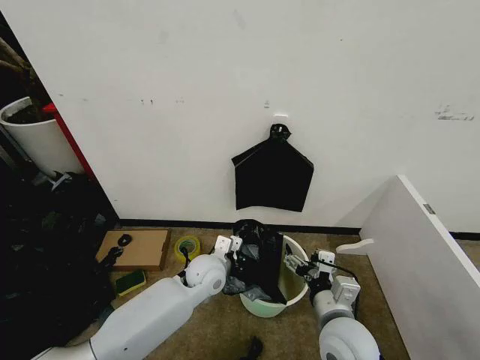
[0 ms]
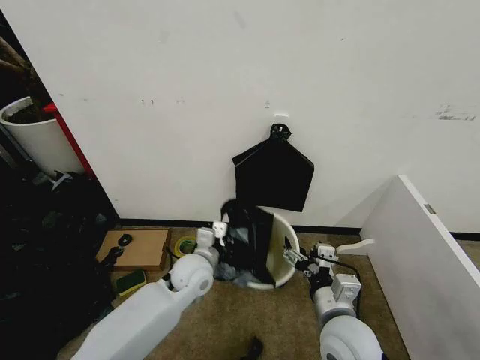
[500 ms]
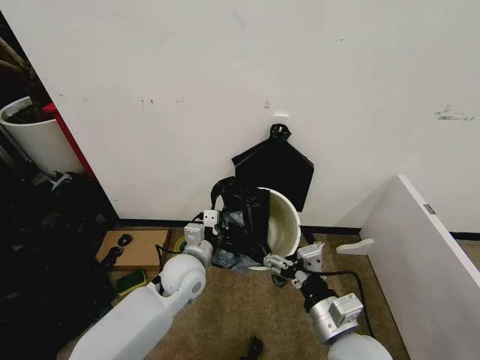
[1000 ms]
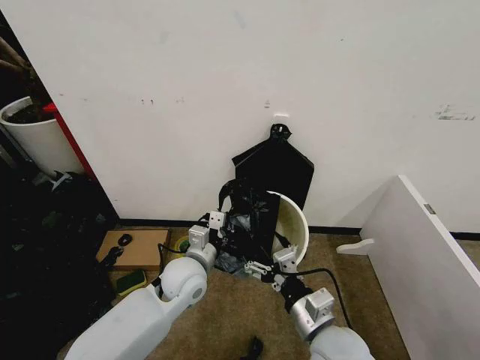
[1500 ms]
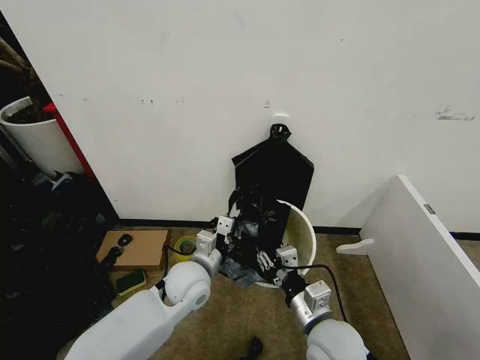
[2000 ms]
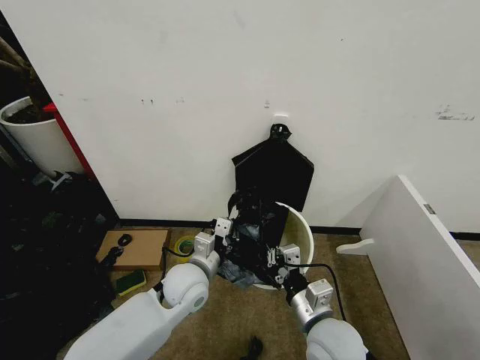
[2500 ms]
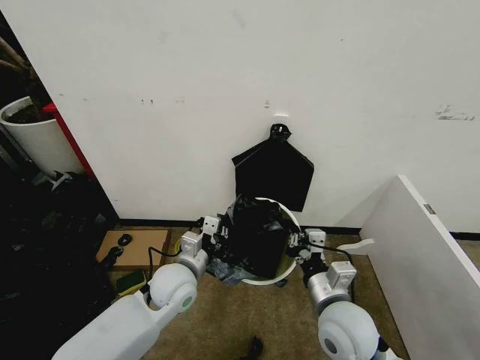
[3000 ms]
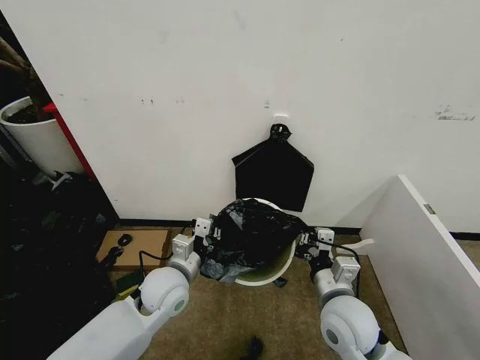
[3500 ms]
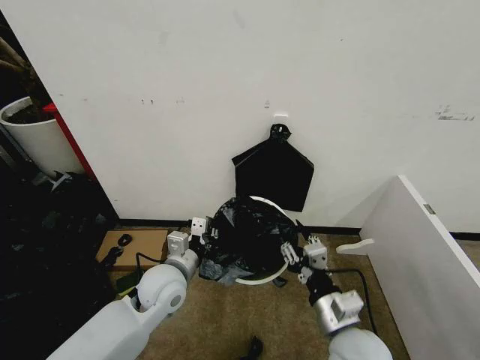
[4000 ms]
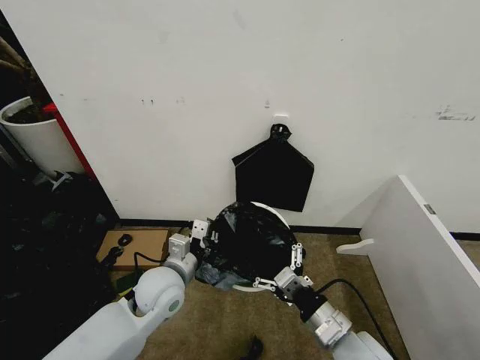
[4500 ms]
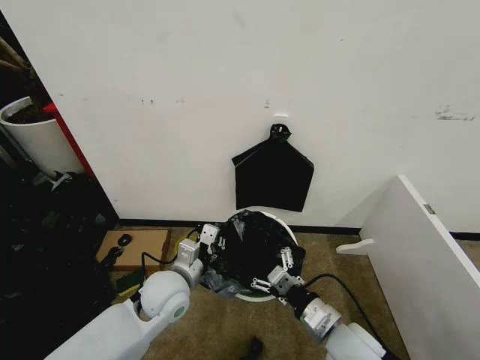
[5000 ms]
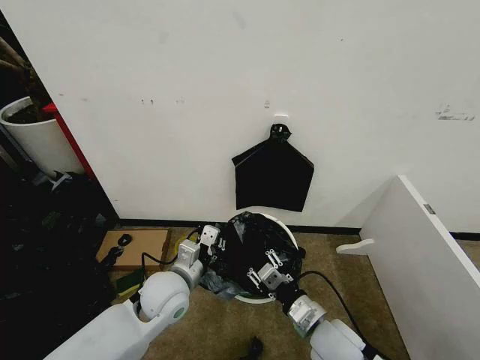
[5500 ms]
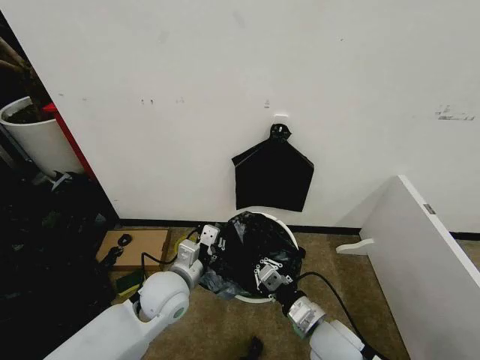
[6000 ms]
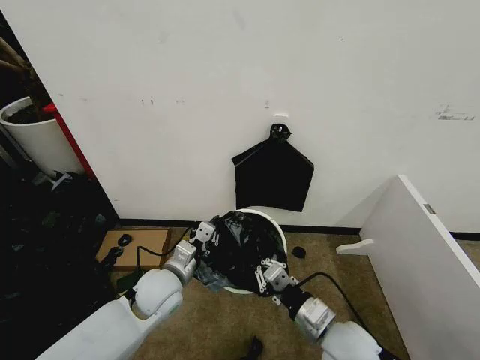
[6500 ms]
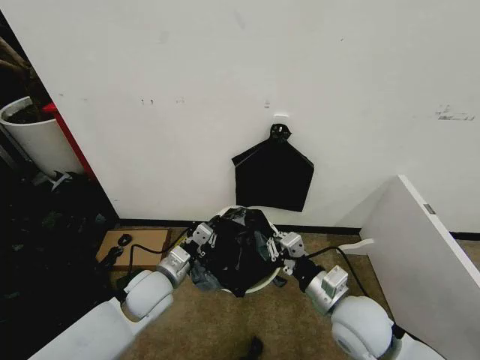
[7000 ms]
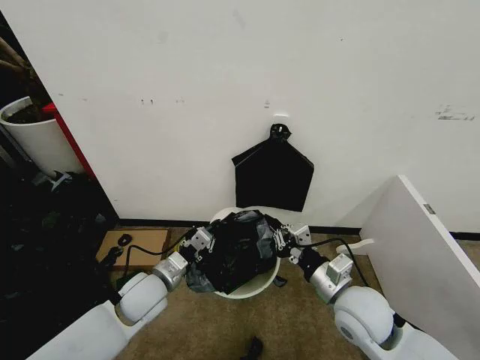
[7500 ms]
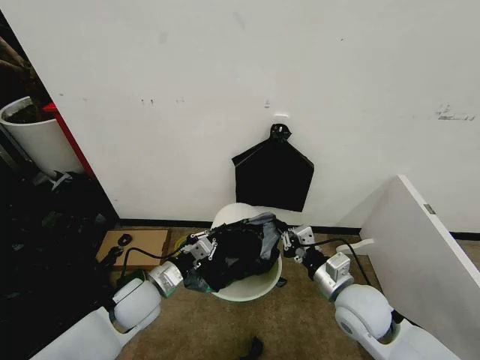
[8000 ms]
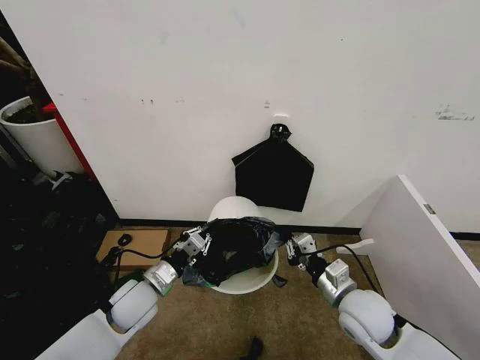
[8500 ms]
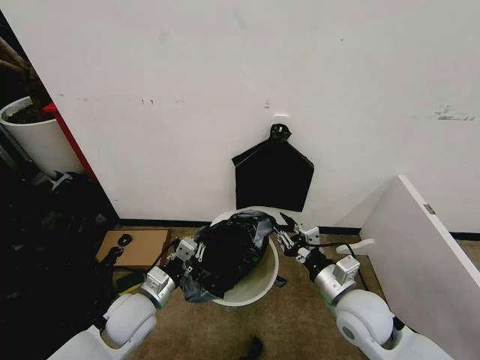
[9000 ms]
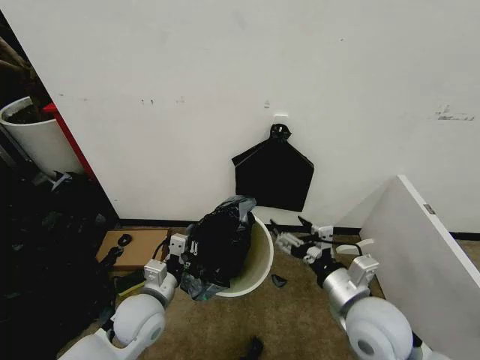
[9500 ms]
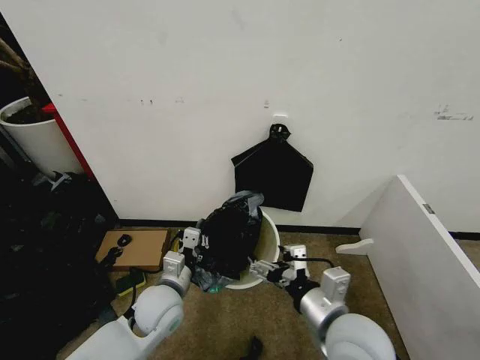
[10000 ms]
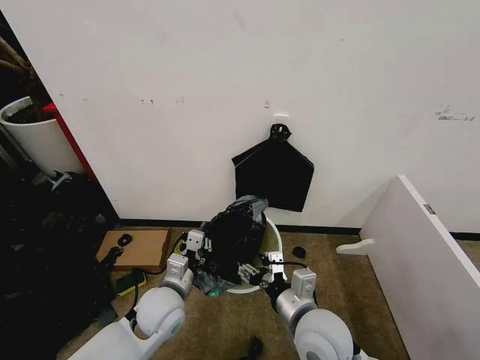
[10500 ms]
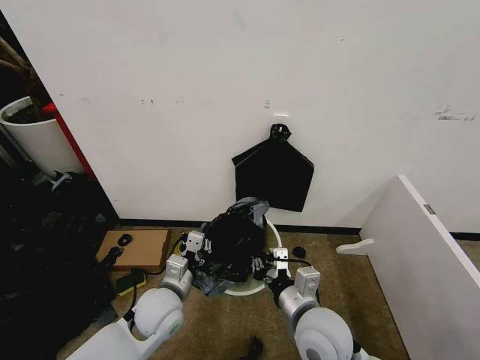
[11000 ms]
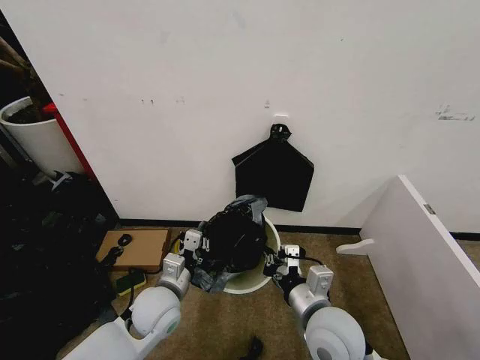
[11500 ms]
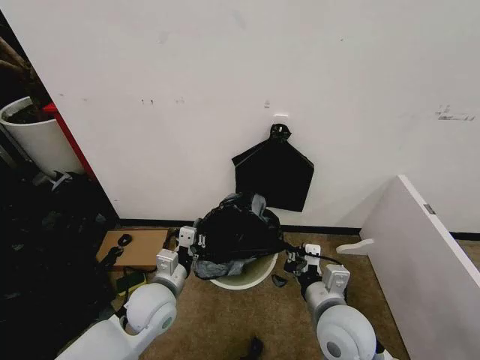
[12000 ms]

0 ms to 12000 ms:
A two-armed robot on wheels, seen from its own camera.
Task of the whole recording: Place the garbage bag over the trash bin.
0 ms to 2000 ms: The left gripper ends up approximately 5 cm from where it was; the right gripper closes its fingers.
2000 ms to 4000 ms: The left gripper heads to the left, covering roughly 5 cm; the right gripper closes, then reopens.
4000 ms to 6000 ms: The right gripper travels downward by about 5 cm, and closes its fingers.
6000 ms to 8000 ms: The left gripper shifts approximately 5 cm to the left; the right gripper goes some 10 cm to the right, forward and upward.
8000 ms to 10000 ms: The left gripper shifts some 5 cm to the right, while the right gripper is displaced backward, to the left and upward by some 10 cm, and opens its fingers.
10000 ms to 12000 ms: The right gripper changes place by roughly 5 cm, and closes its fingers.

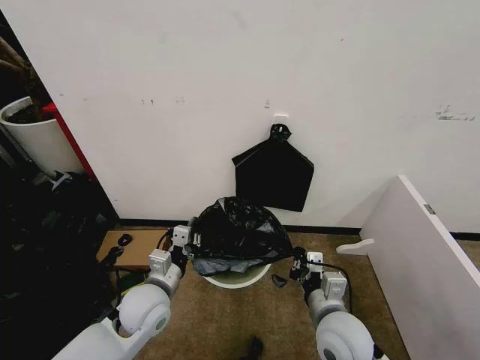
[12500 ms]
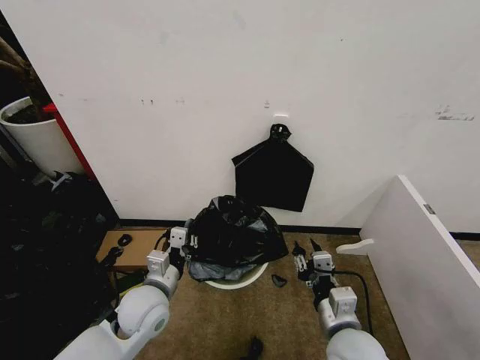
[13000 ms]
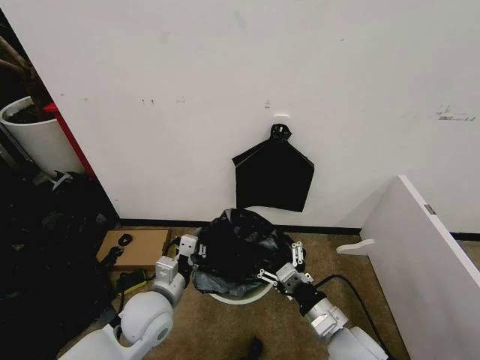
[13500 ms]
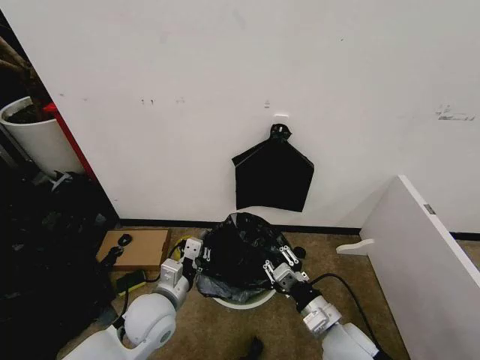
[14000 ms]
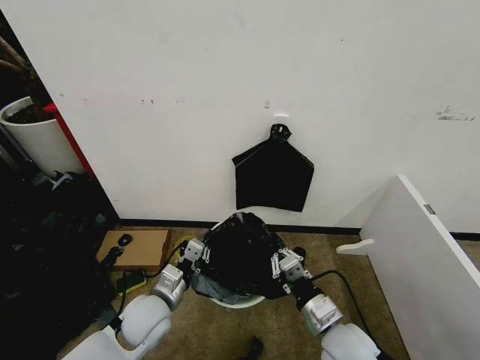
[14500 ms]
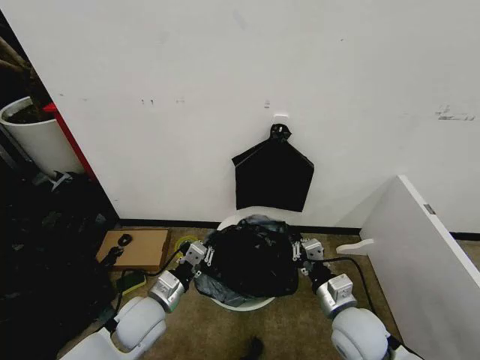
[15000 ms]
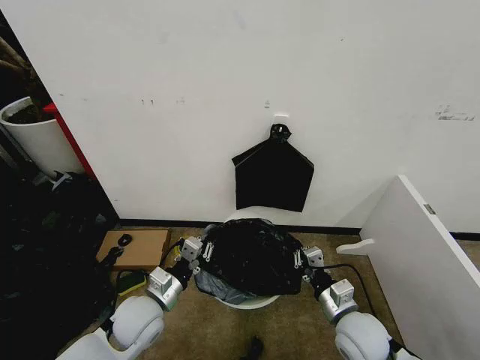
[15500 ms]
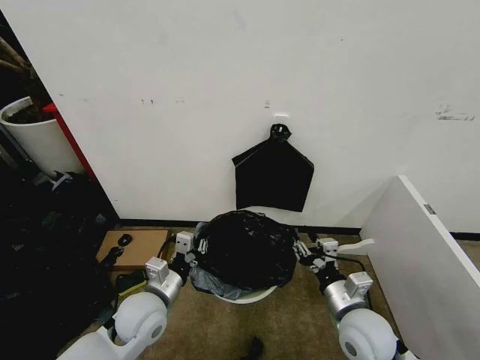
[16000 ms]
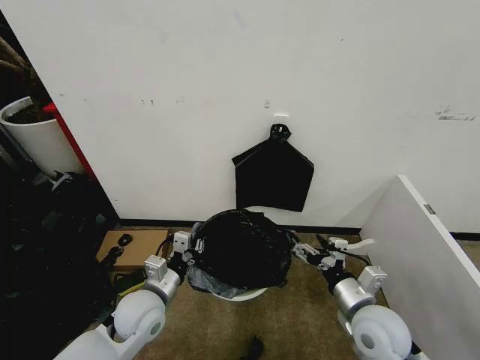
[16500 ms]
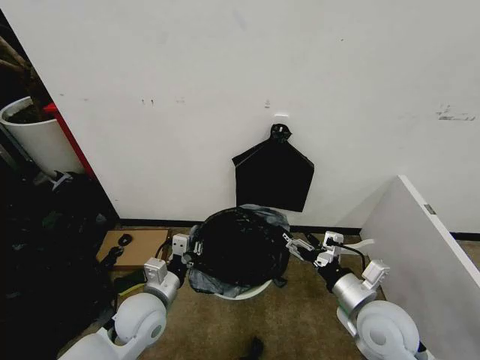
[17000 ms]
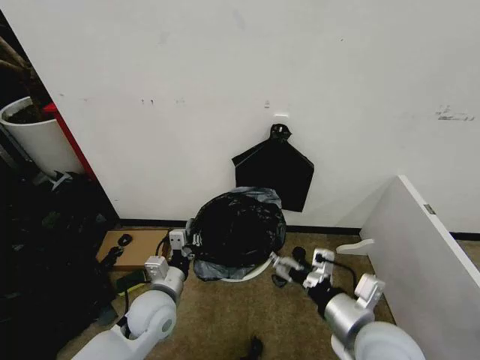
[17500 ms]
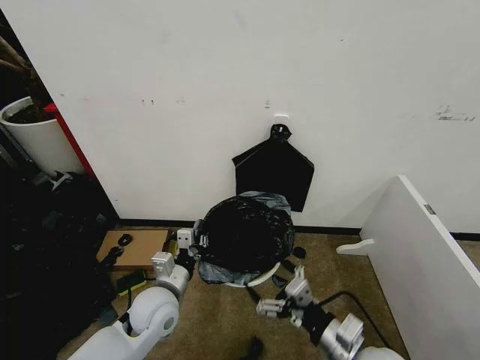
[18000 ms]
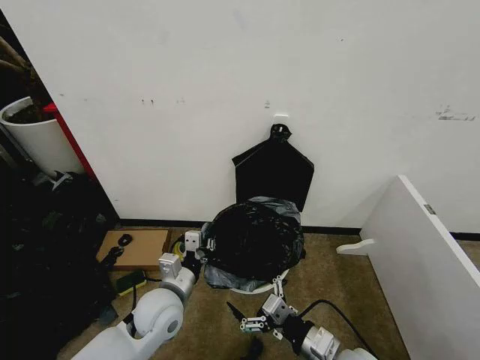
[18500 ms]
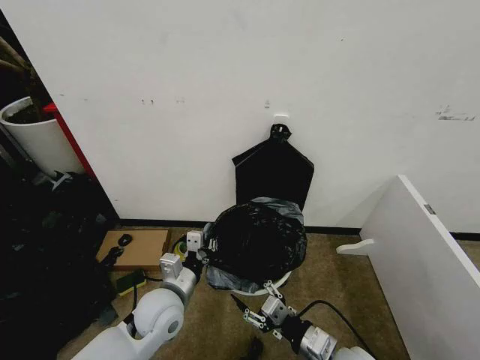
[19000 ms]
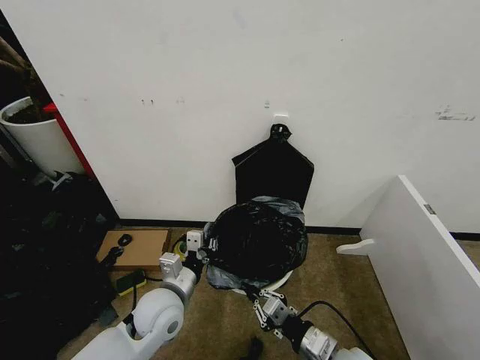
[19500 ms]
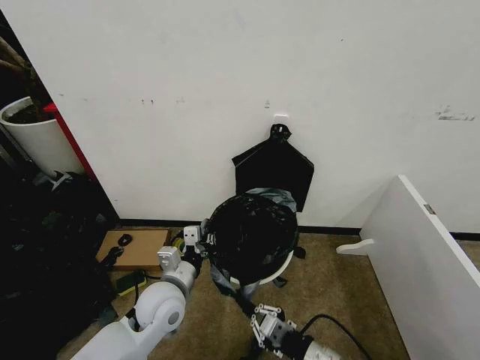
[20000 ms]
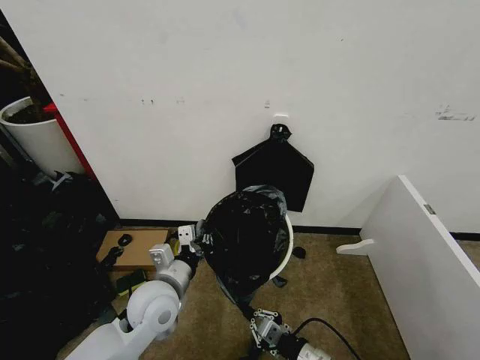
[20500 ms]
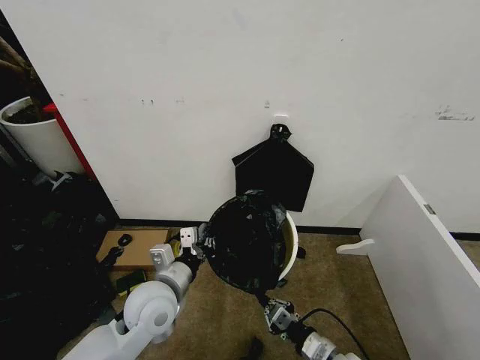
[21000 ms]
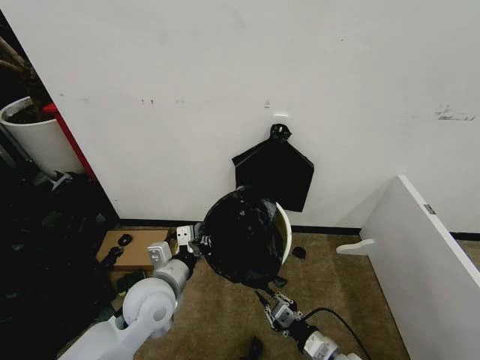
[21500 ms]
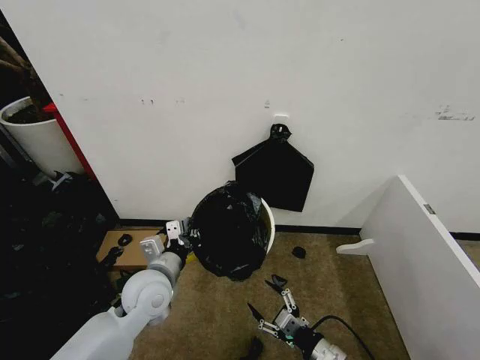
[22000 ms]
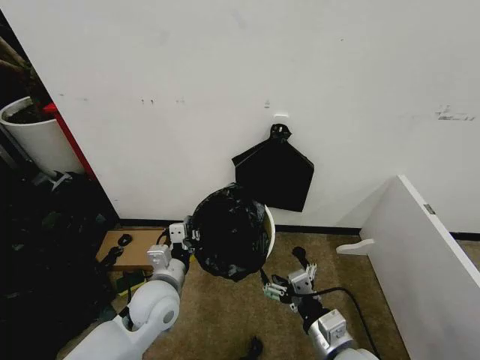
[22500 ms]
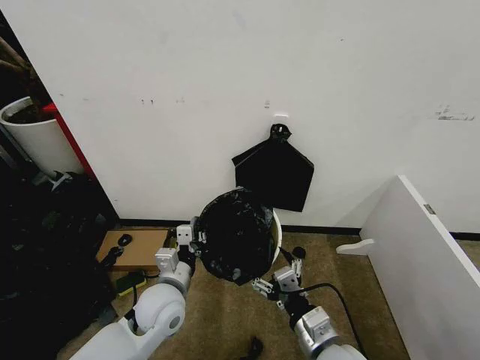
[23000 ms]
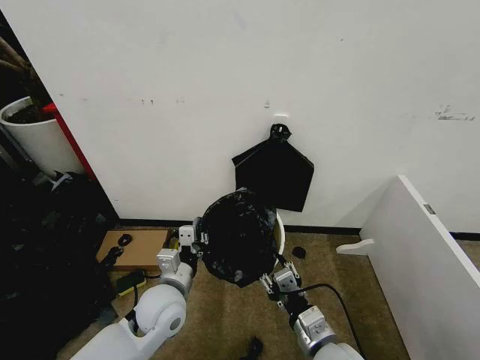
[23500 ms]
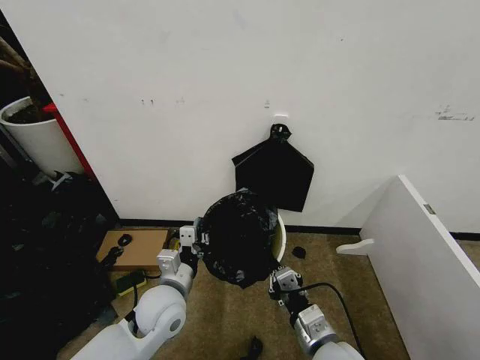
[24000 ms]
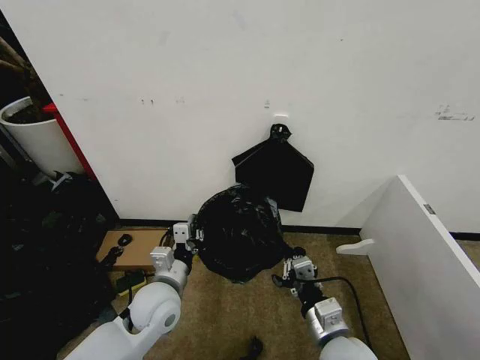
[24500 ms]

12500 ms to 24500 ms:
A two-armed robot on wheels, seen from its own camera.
Task of the whole recording: Place the garbage bag over the trash bin.
12500 ms to 14500 ms: The right gripper opens and closes again.
14500 ms to 16500 ms: The right gripper is displaced to the right by roughly 5 cm, and opens its fingers.
16500 ms to 18500 ms: The right gripper travels backward and to the left by some 10 cm, and travels upward and back again, about 5 cm each way.
18500 ms to 20500 ms: The right gripper goes about 5 cm downward, and closes its fingers.
20500 ms to 22500 ms: The right gripper shifts about 10 cm upward, and opens up.
22500 ms to 24500 ms: The right gripper closes up.

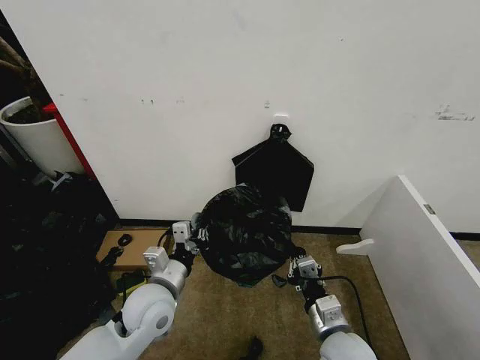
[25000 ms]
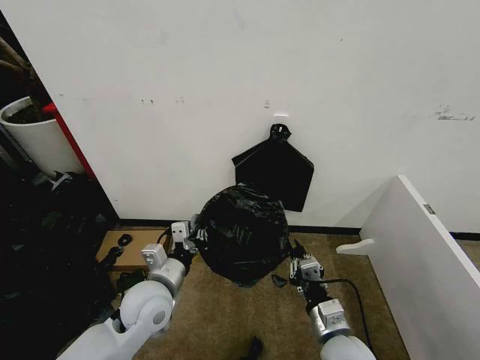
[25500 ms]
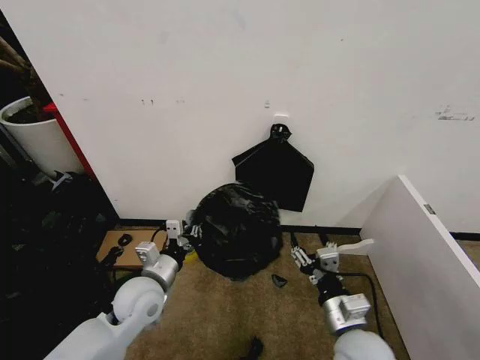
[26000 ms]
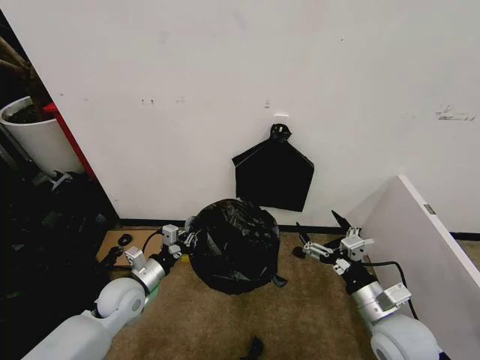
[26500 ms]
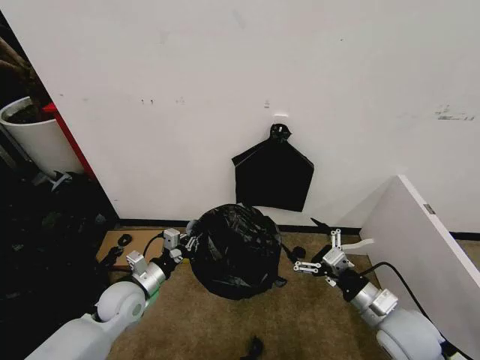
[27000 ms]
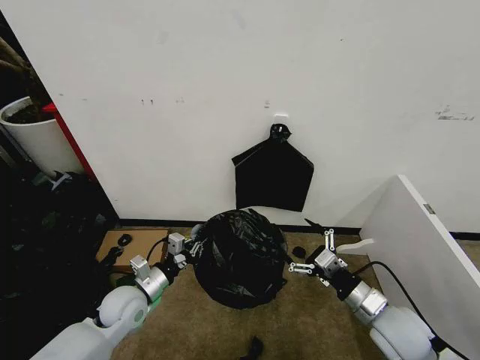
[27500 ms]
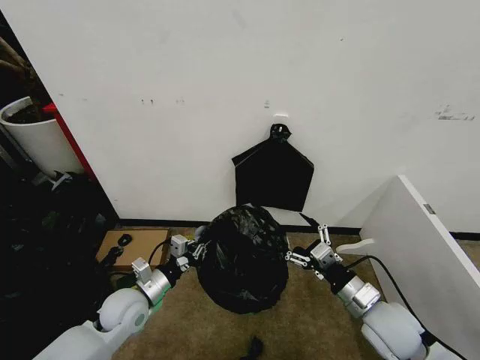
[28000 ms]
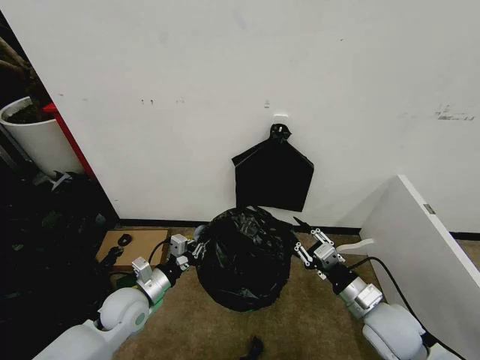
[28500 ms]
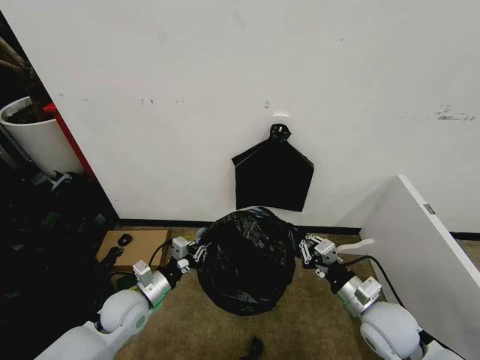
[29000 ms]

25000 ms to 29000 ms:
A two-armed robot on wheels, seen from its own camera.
Task of the whole recording: Place the garbage bag over the trash bin.
25000 ms to 27000 ms: The left gripper is displaced to the left and downward by some 10 cm. Meanwhile the right gripper goes about 10 cm to the right, and opens up.
27000 ms to 29000 ms: The right gripper closes its fingers.
